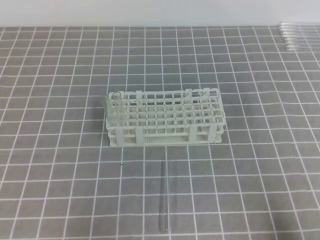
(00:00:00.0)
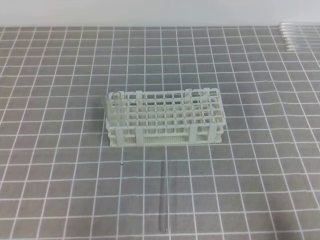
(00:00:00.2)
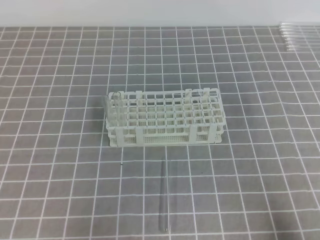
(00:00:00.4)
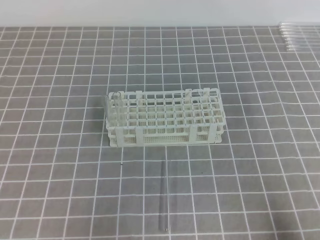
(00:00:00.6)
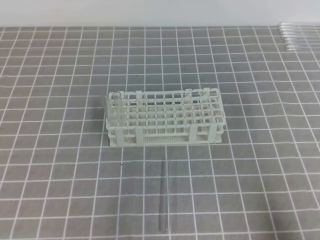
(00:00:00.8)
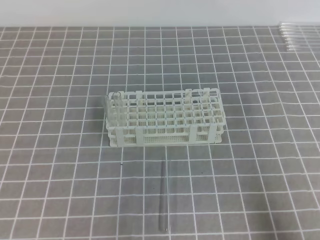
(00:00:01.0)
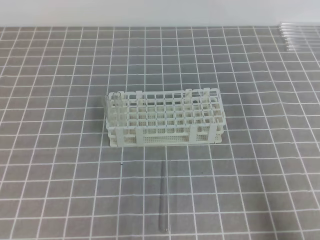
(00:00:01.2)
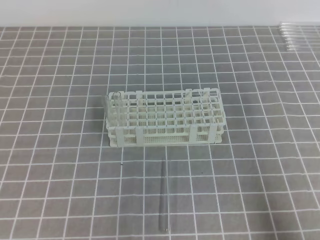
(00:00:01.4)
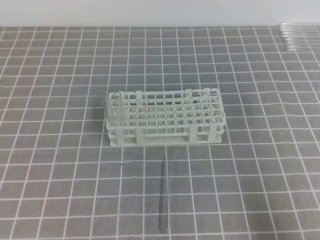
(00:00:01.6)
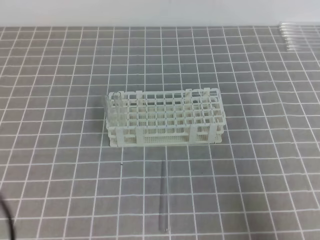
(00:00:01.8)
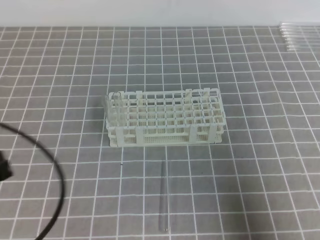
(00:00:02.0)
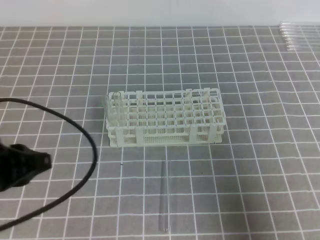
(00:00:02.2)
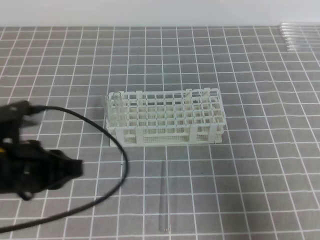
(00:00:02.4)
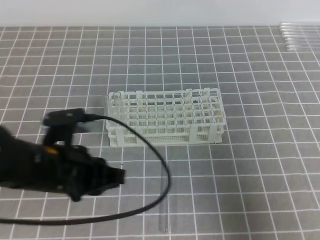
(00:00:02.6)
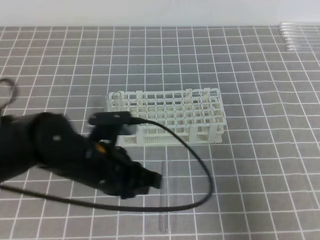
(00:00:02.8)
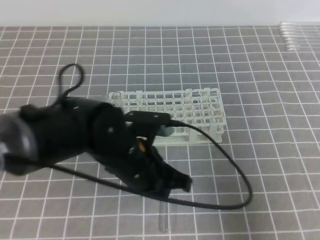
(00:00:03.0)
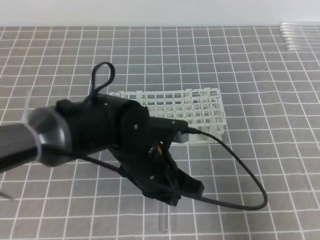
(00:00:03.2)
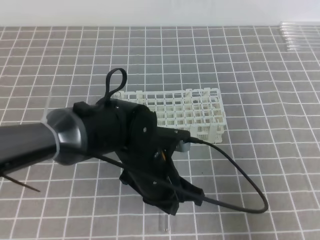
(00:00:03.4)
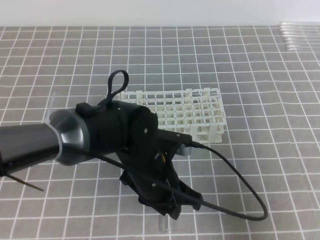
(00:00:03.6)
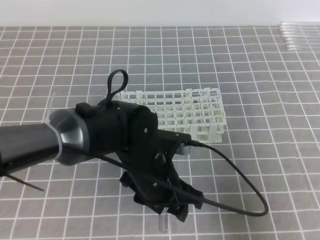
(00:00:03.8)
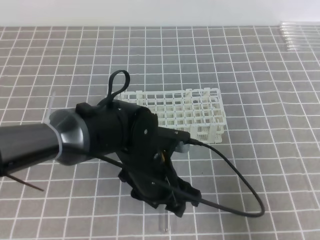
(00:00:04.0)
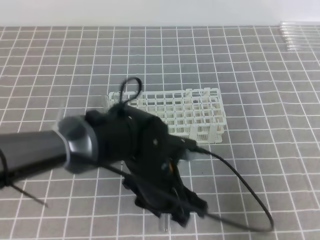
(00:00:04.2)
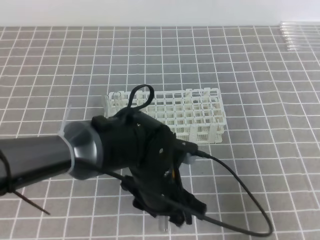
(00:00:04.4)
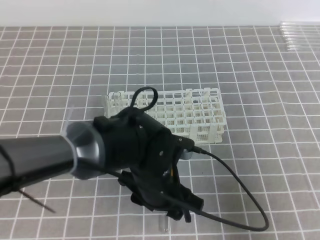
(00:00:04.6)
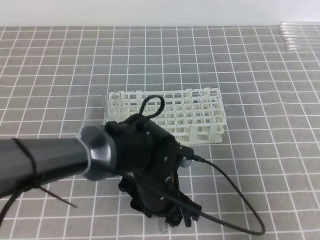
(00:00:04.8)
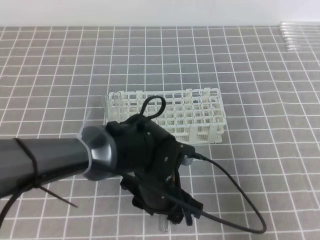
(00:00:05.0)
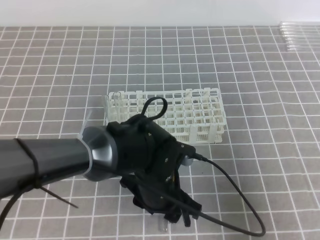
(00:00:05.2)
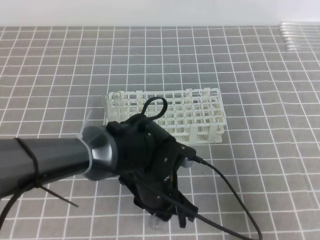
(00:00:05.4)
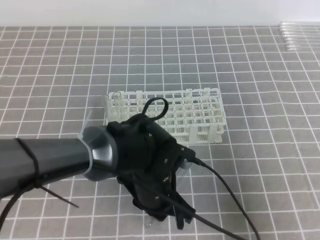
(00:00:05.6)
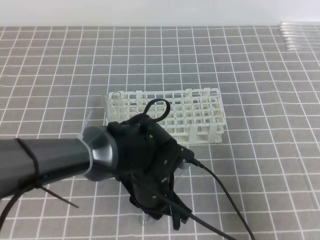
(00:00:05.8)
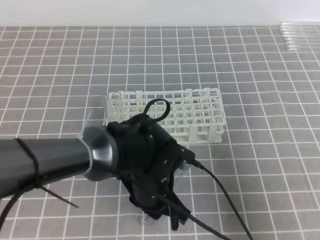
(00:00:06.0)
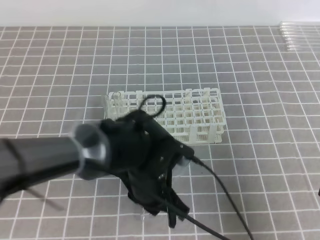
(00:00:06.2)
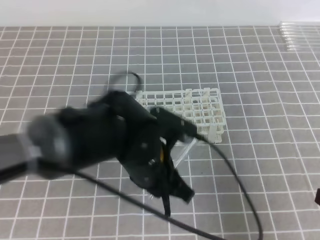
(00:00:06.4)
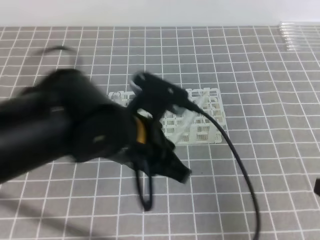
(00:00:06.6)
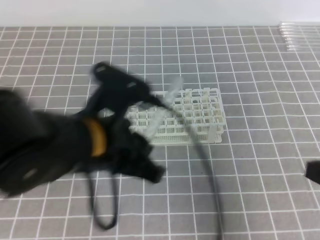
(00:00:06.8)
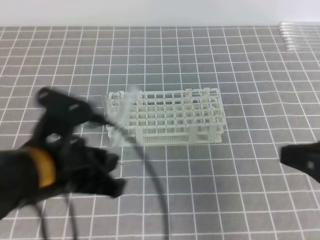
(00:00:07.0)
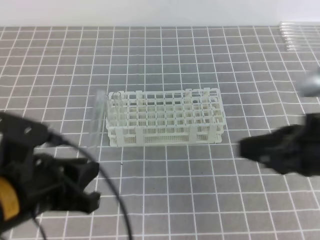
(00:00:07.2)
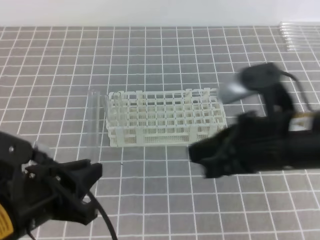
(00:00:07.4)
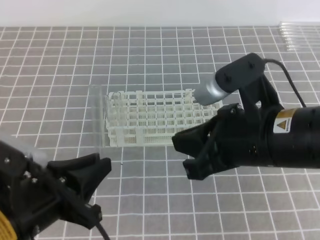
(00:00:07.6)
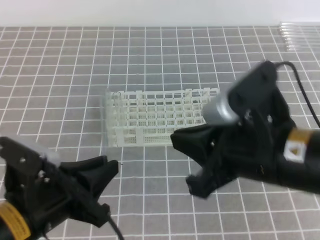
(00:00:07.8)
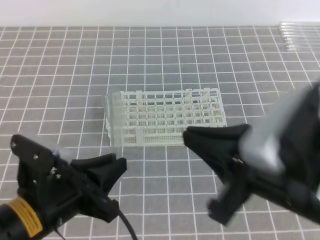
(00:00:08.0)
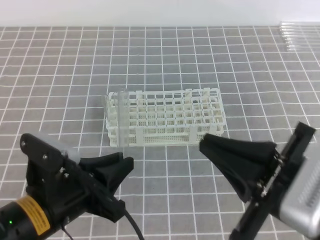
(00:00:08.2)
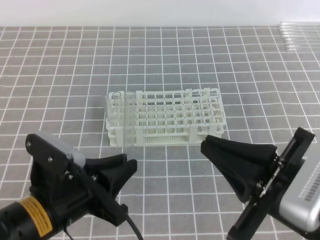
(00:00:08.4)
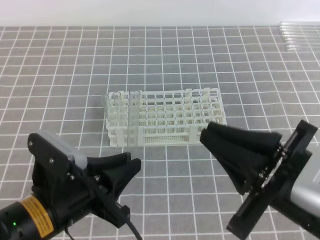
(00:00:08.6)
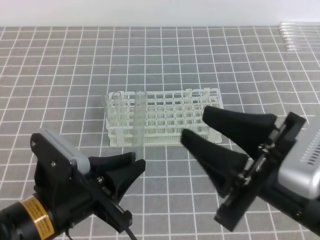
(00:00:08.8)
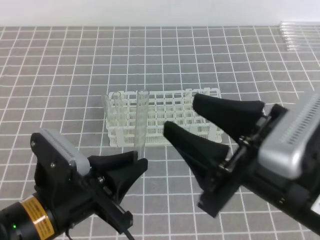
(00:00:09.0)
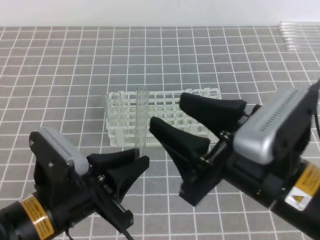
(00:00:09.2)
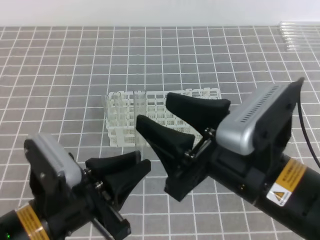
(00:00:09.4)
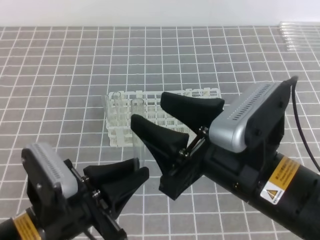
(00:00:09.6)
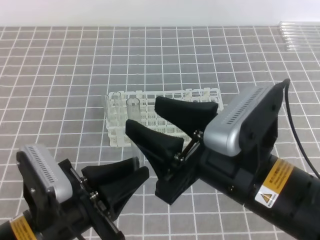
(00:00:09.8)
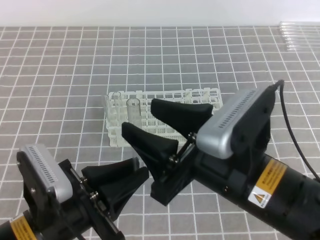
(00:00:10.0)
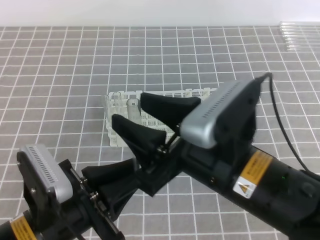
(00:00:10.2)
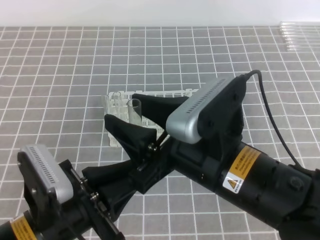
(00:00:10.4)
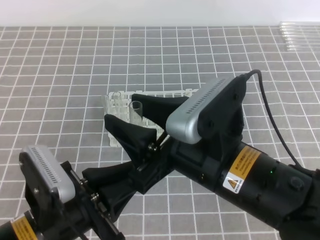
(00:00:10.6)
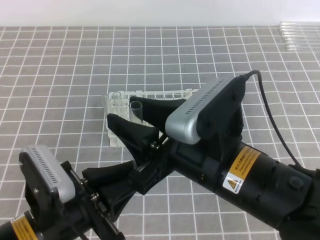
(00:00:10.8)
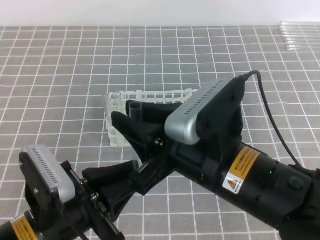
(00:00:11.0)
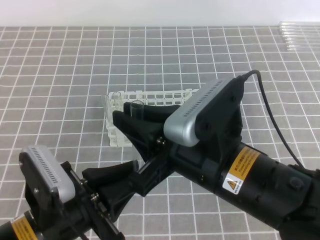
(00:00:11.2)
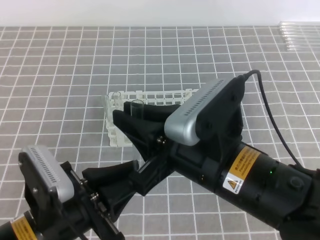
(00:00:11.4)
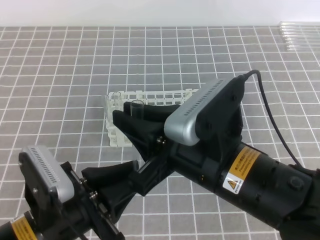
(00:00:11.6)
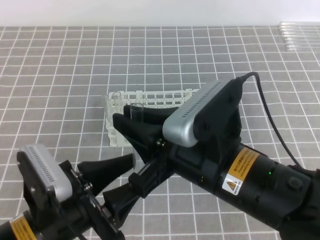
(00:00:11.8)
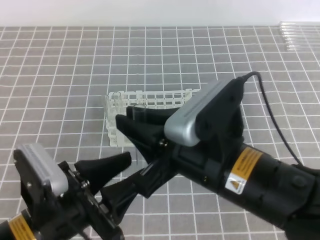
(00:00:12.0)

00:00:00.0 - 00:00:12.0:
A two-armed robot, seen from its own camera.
00:00:01.6 - 00:00:03.0: The right gripper is displaced forward by about 5 cm; the left gripper is displaced to the right and forward by roughly 25 cm.
00:00:03.0 - 00:00:04.4: The left gripper is displaced to the right by about 10 cm, and opens.
00:00:04.4 - 00:00:06.0: The left gripper closes its fingers.
00:00:06.0 - 00:00:07.6: The right gripper is displaced to the left, upward and forward by roughly 15 cm; the left gripper goes roughly 20 cm to the left, backward and upward.
00:00:07.6 - 00:00:09.0: The right gripper goes some 5 cm backward, and opens.
00:00:09.0 - 00:00:10.4: The right gripper travels to the left by some 5 cm.
00:00:10.4 - 00:00:12.0: The right gripper closes up; the left gripper opens its fingers.

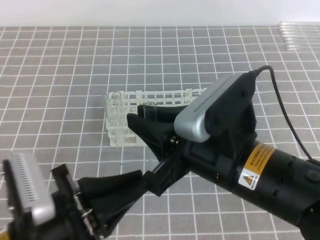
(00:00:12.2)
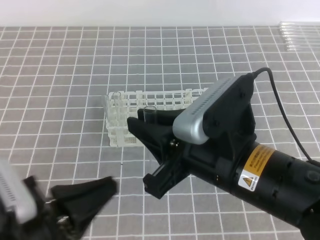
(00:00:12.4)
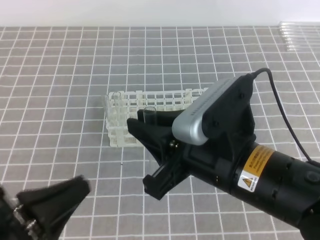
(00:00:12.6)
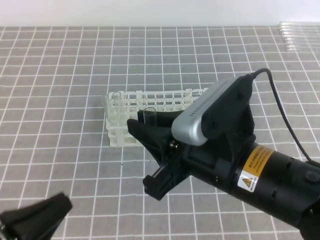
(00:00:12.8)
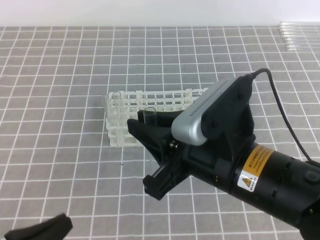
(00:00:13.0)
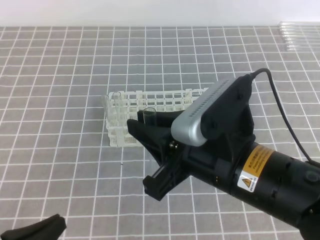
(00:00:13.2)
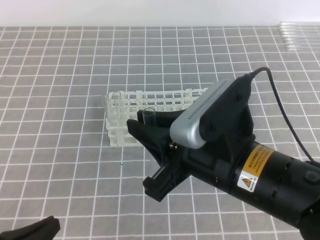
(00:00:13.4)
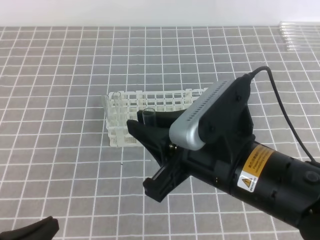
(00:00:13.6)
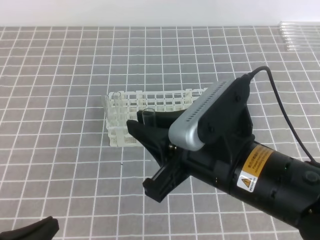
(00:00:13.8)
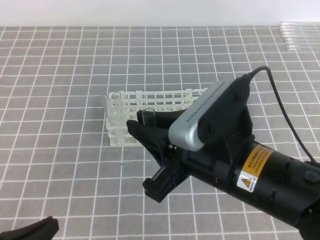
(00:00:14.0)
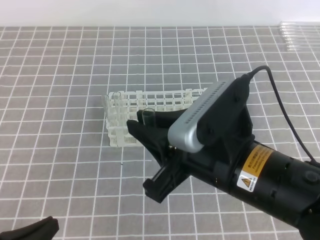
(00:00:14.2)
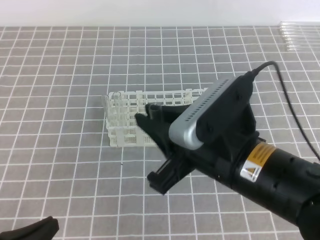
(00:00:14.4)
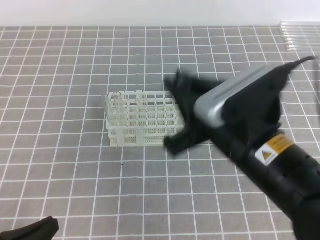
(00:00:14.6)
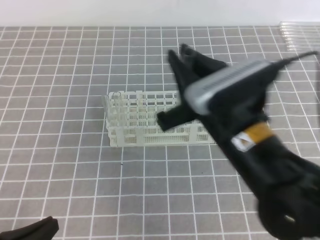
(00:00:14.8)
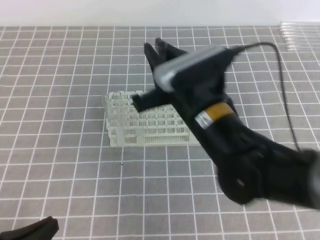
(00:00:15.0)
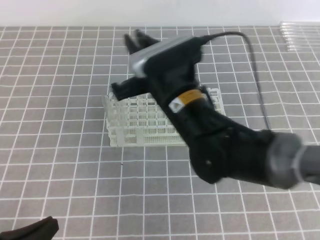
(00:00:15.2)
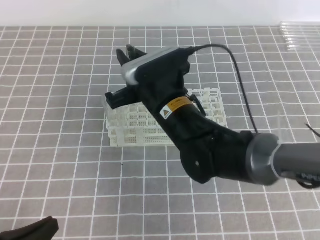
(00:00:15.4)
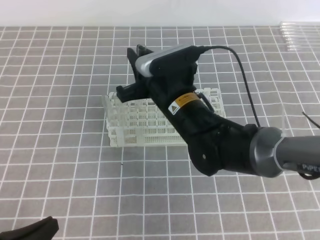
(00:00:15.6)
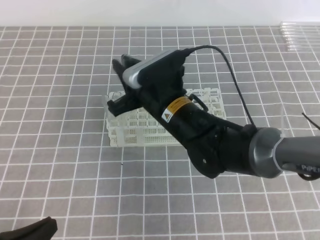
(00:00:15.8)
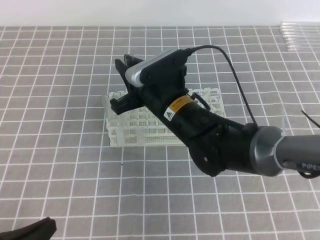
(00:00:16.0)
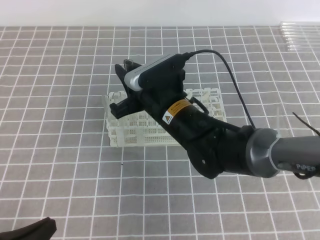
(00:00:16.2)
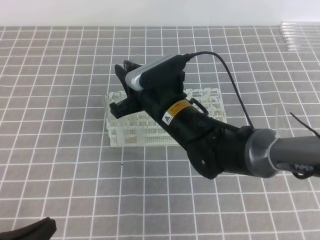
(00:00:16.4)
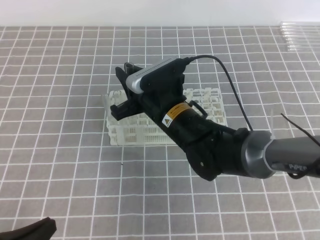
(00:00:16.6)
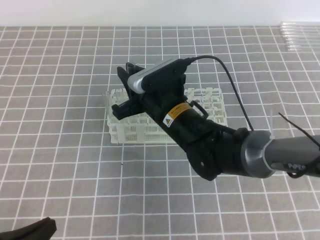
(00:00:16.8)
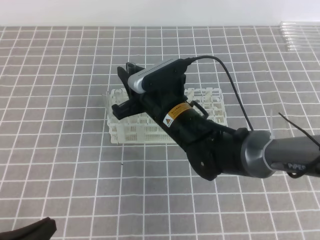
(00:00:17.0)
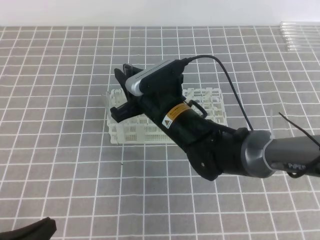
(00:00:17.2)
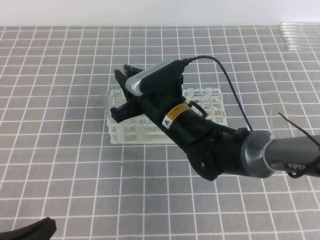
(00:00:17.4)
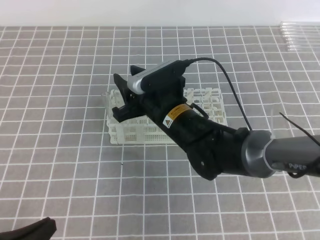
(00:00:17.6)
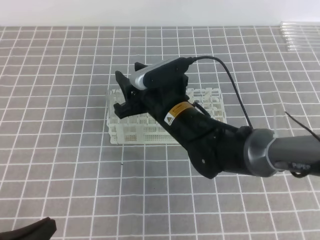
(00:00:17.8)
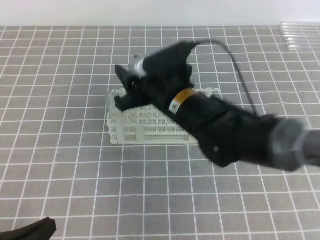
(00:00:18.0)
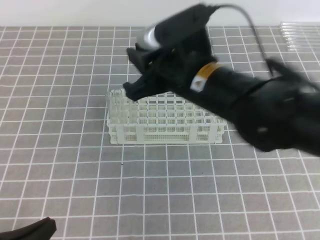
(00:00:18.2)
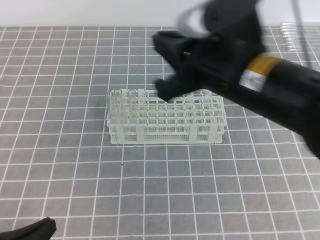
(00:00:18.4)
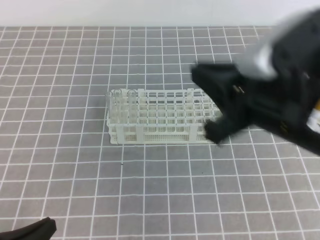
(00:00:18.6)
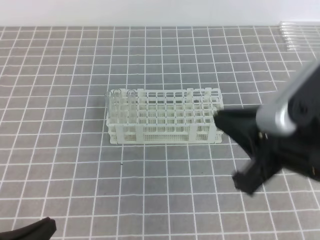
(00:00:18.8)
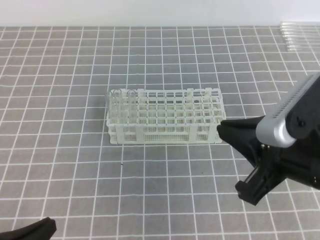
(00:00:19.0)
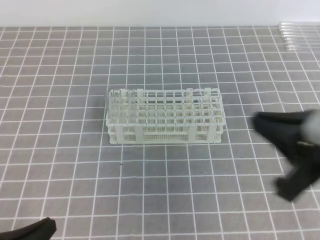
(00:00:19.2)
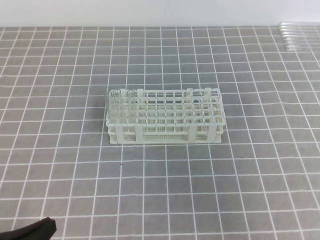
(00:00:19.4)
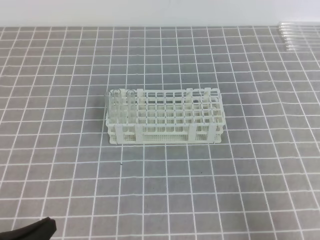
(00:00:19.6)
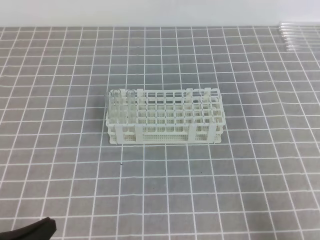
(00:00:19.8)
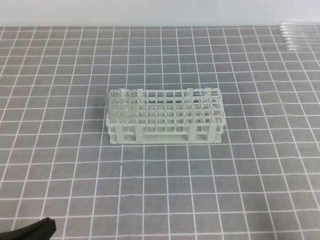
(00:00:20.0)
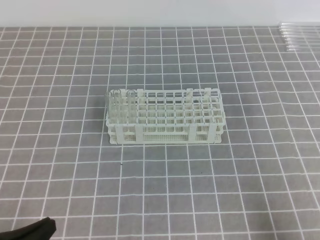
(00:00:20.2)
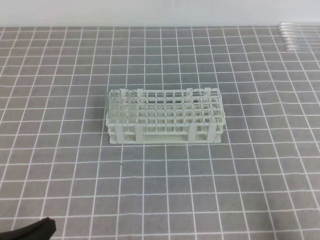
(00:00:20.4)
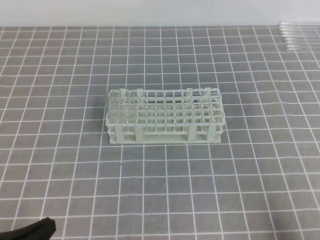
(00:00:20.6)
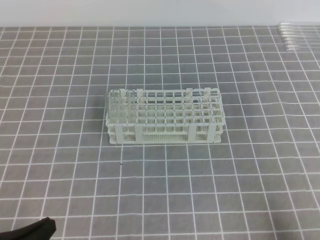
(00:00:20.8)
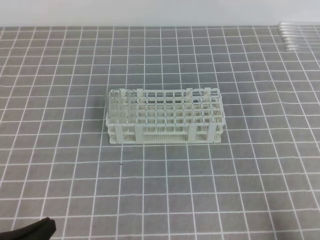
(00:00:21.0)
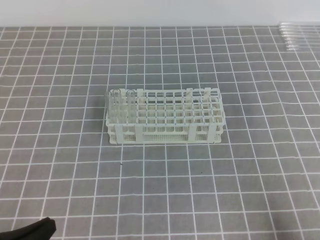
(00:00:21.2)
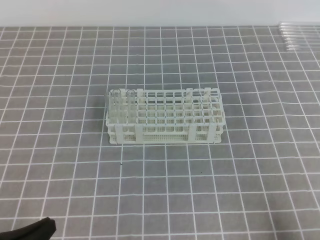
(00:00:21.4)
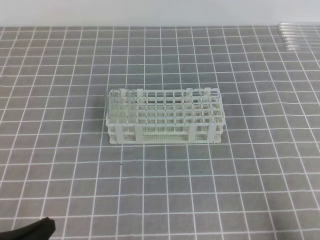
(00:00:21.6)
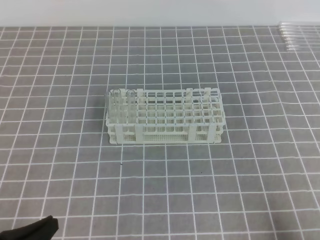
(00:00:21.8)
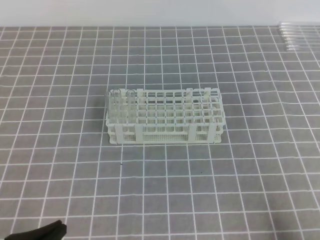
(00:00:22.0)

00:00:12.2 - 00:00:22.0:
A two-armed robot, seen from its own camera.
00:00:12.2 - 00:00:13.6: The left gripper goes about 10 cm to the left, backward and downward, and closes.
00:00:13.6 - 00:00:15.0: The right gripper is displaced forward by about 5 cm.
00:00:15.0 - 00:00:16.4: The right gripper moves forward, downward and to the left, some 15 cm.
00:00:16.4 - 00:00:17.8: The right gripper opens up.
00:00:17.8 - 00:00:19.2: The right gripper goes approximately 25 cm to the right, backward and upward, and closes.
00:00:19.2 - 00:00:20.6: The right gripper travels downward, to the right and backward by roughly 20 cm.
